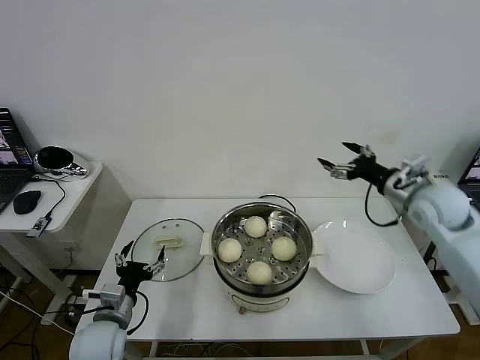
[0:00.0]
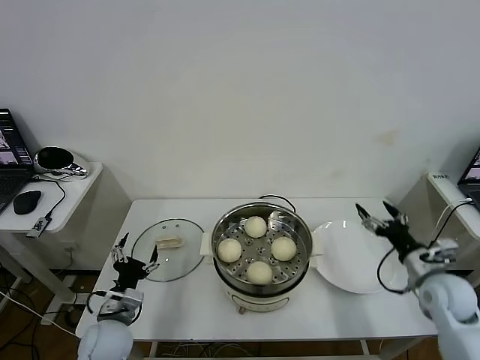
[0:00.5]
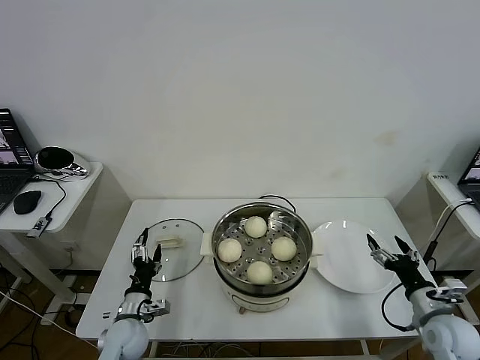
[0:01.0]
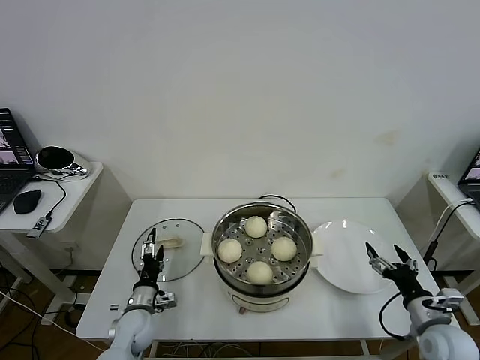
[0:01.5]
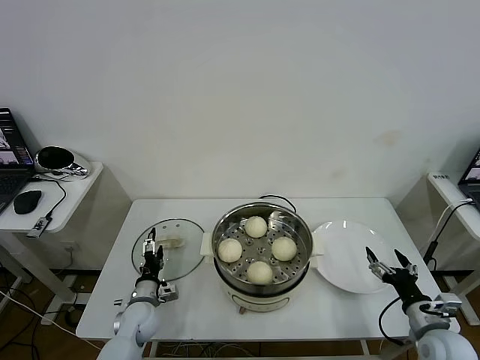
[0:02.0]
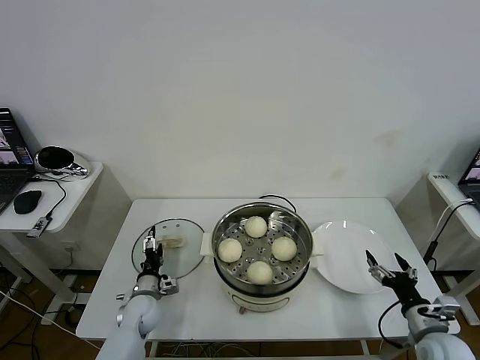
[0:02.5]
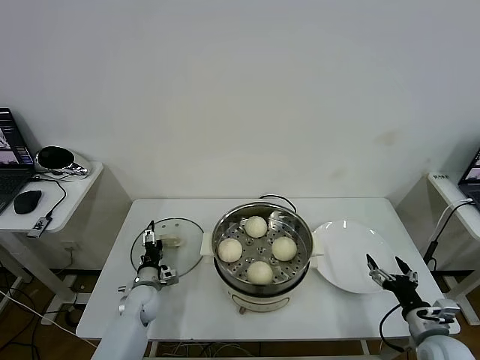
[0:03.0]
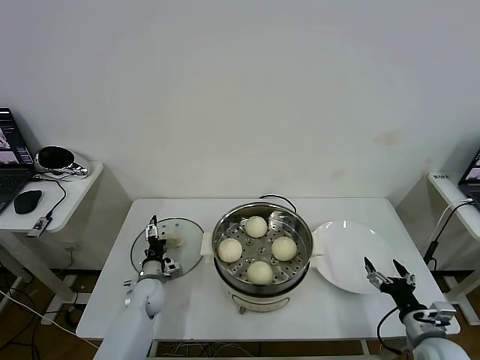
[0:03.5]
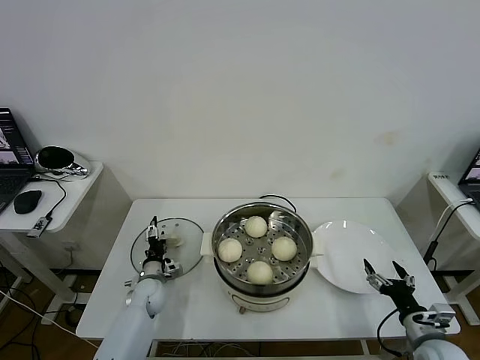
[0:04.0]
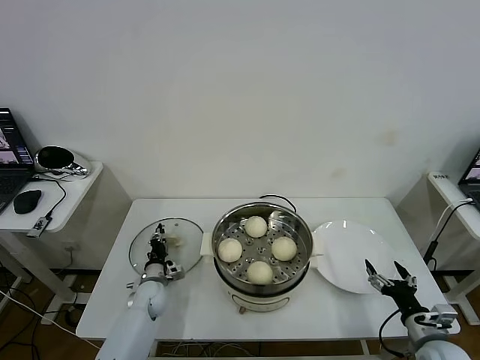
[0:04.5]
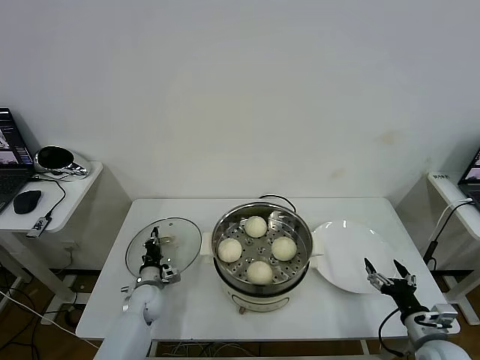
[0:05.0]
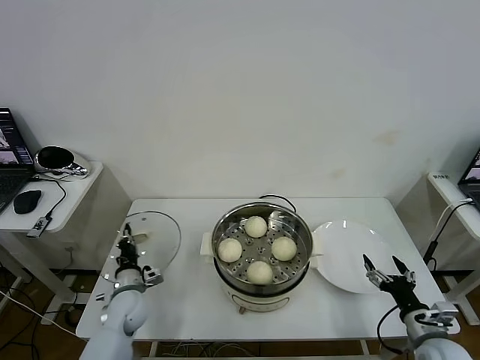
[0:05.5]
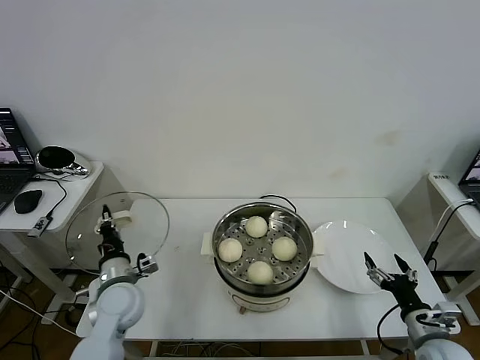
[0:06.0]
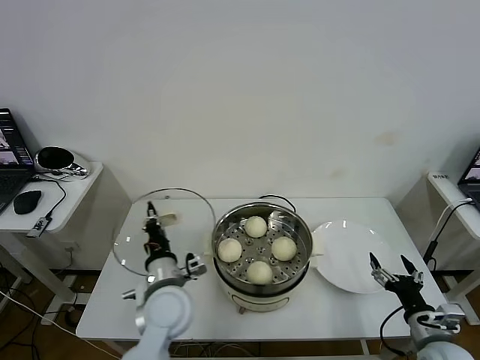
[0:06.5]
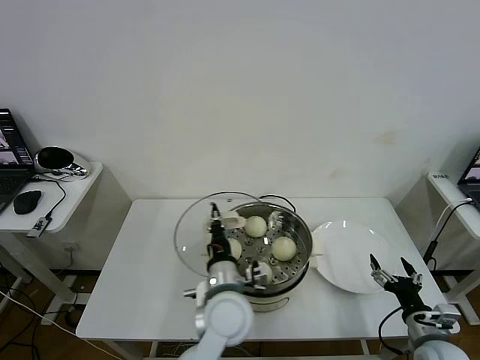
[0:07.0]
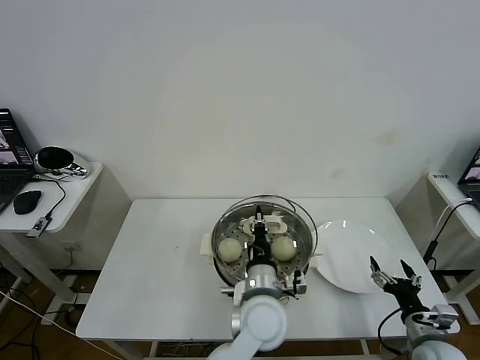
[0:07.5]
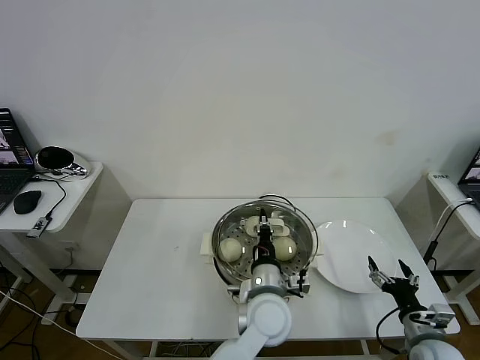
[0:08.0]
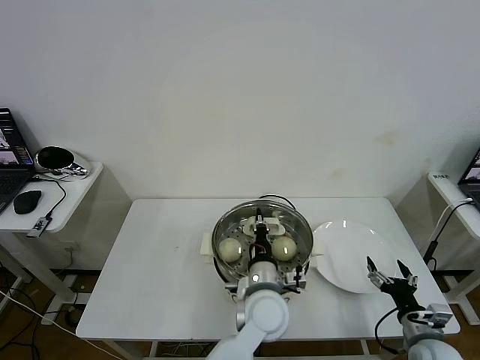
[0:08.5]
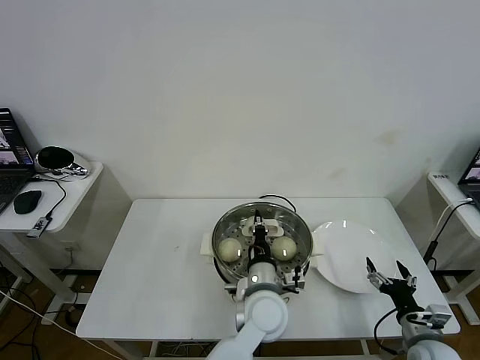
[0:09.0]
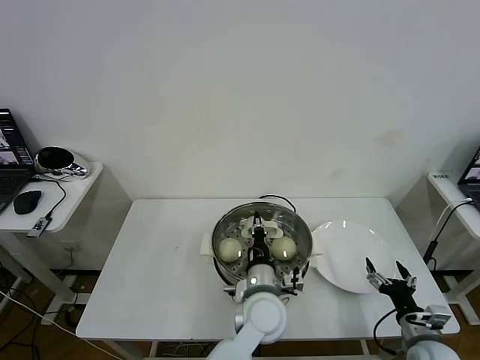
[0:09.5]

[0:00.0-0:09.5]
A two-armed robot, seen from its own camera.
Task of the whole recording: take steamed baozi put them in steamer then cover it.
Step, 0:00.0 to 0:04.5: Grasp the pot lid with left gripper.
0:00.0 to 0:02.0: The right gripper travels backward and downward by some 30 cm; the left gripper goes approximately 15 cm downward and forward.
0:02.0 to 0:04.0: The left gripper is displaced forward by some 10 cm.
0:04.0 to 0:05.5: The left gripper is displaced backward and upward by about 10 cm, and closes.
0:05.5 to 0:07.5: The left gripper is displaced to the right and upward by some 35 cm.
0:07.5 to 0:09.5: There are only small adjustments of the grippers.

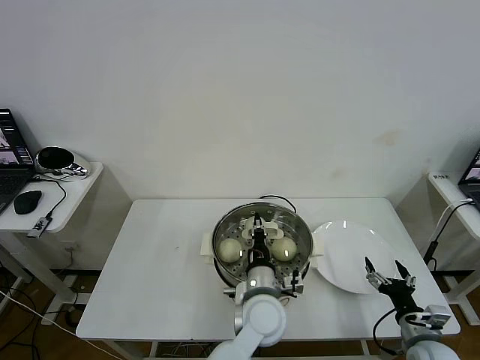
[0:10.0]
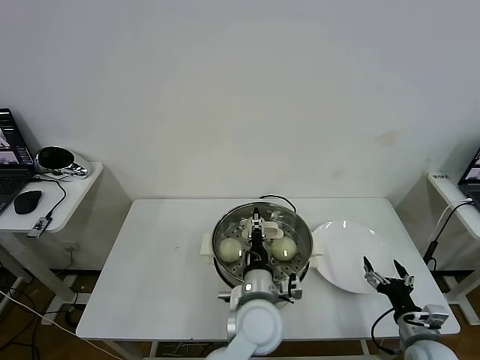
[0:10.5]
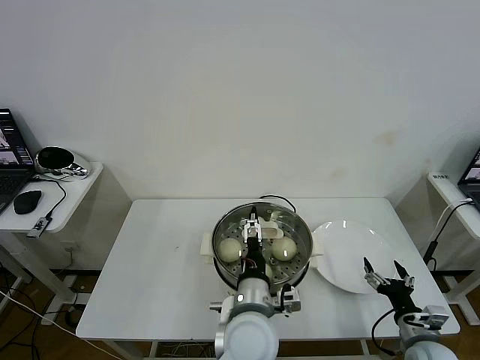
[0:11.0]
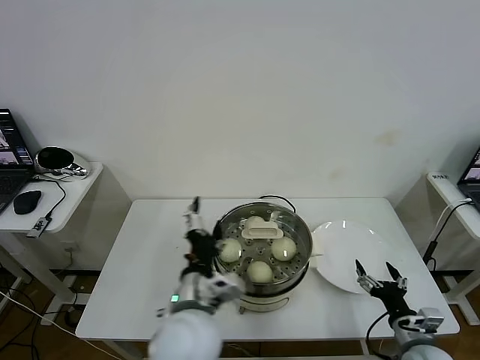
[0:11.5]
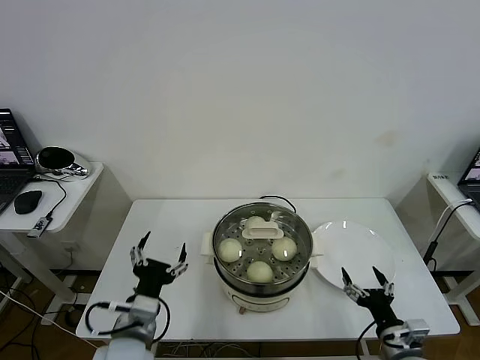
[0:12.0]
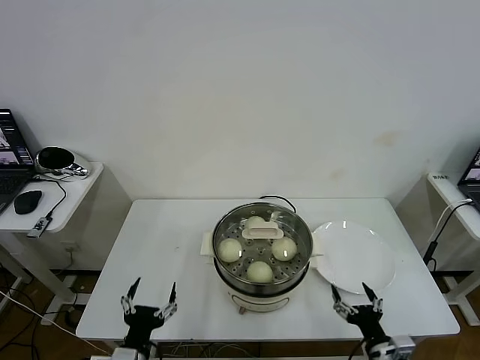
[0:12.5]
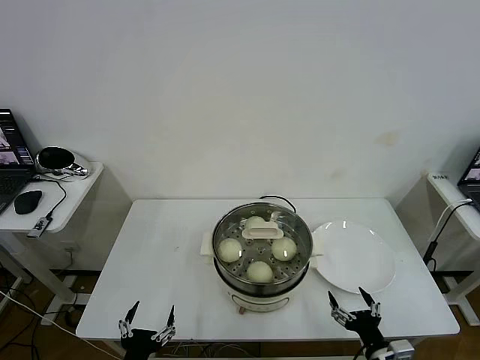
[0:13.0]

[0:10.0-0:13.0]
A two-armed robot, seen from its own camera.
Task of the whole recording: take steamed baozi put them in steamer then cover it.
0:10.0 to 0:11.5: The left gripper goes roughly 15 cm to the left, upward and backward, and opens up.
0:11.5 to 0:13.0: The left gripper moves to the left, downward and backward, about 25 cm; the right gripper travels to the left and backward by roughly 10 cm.

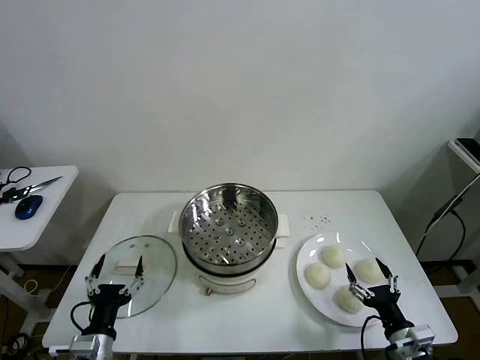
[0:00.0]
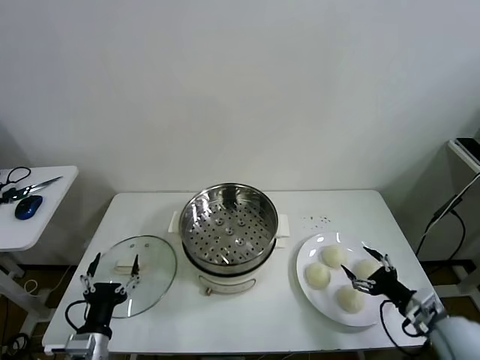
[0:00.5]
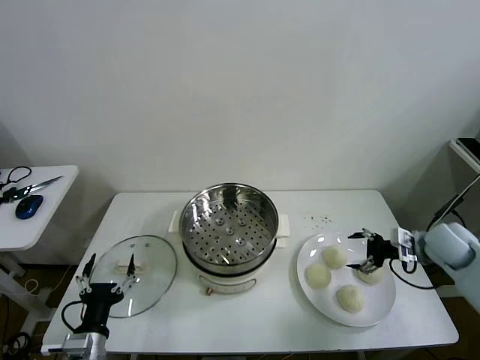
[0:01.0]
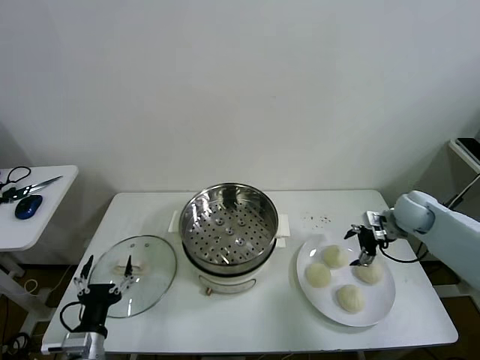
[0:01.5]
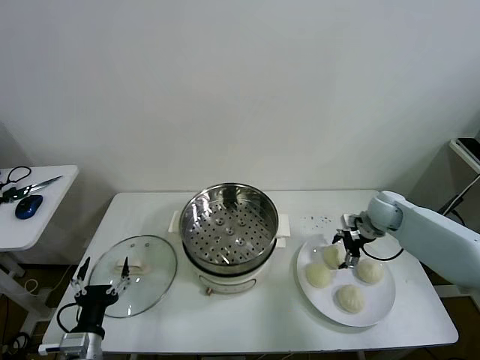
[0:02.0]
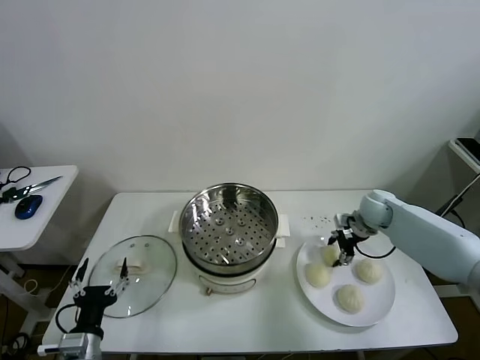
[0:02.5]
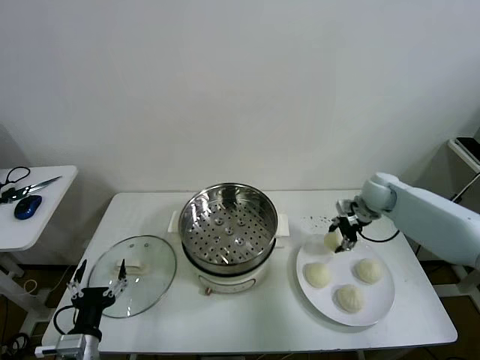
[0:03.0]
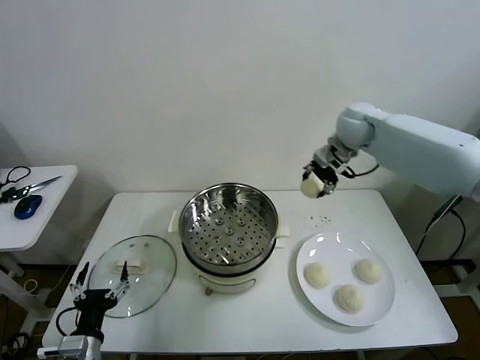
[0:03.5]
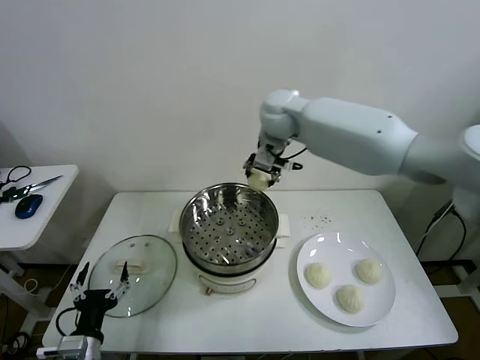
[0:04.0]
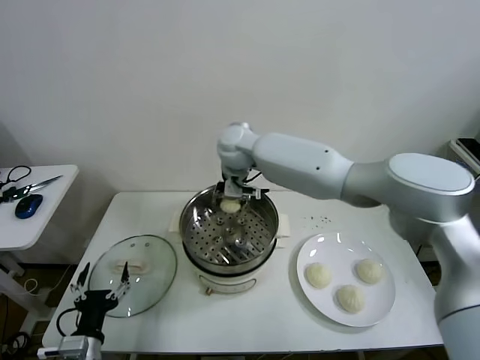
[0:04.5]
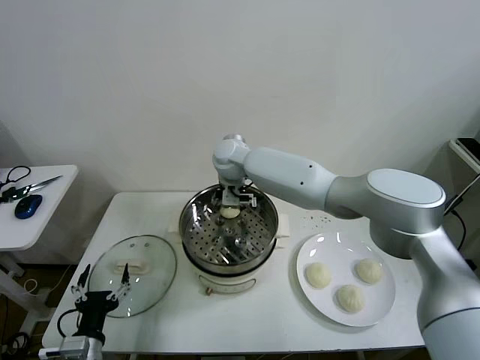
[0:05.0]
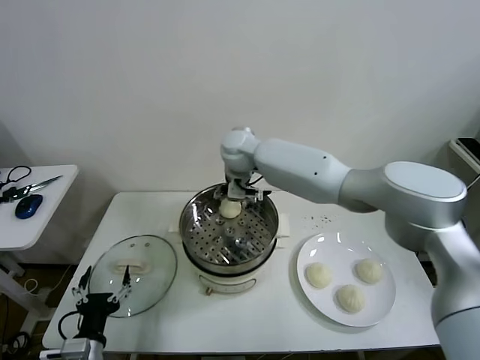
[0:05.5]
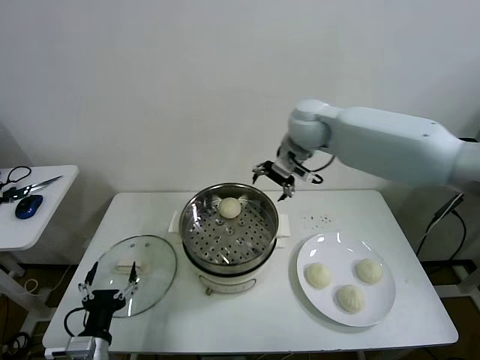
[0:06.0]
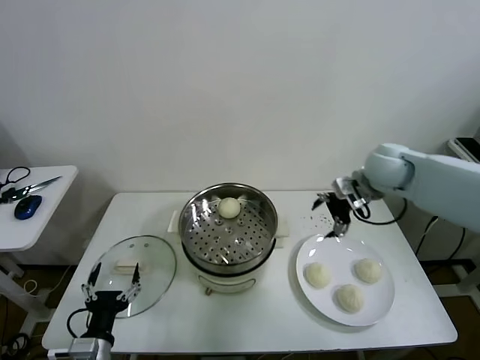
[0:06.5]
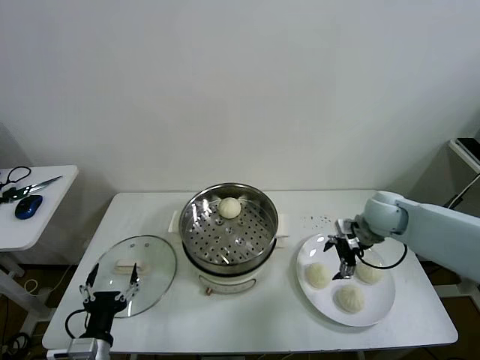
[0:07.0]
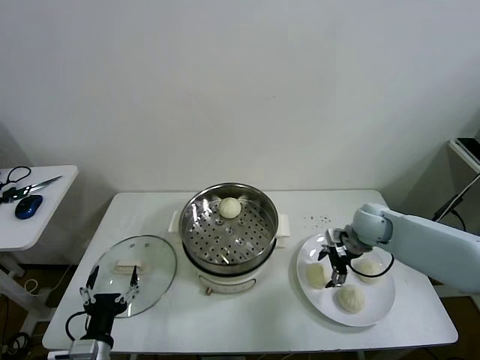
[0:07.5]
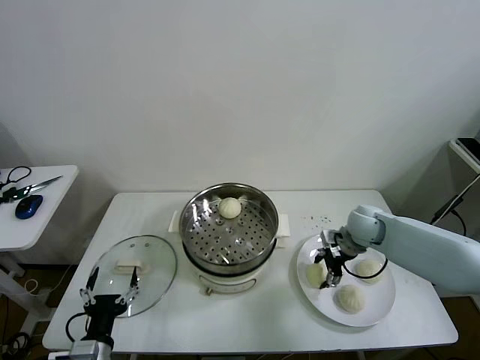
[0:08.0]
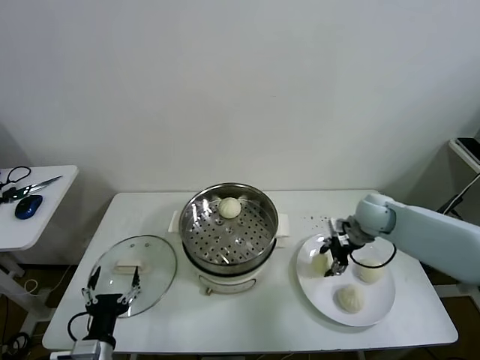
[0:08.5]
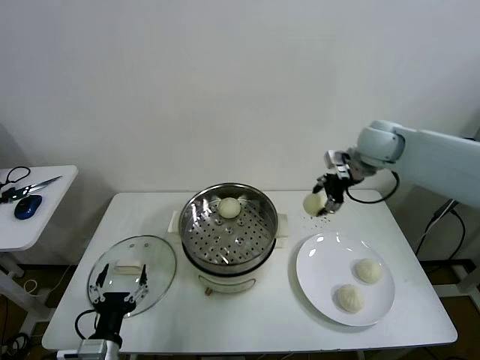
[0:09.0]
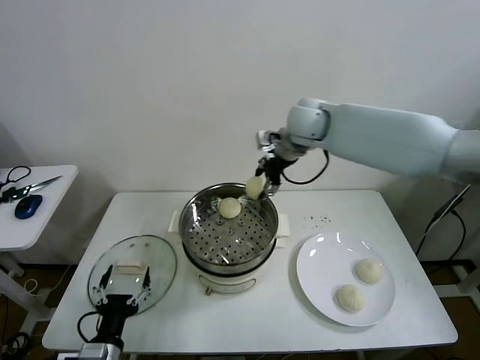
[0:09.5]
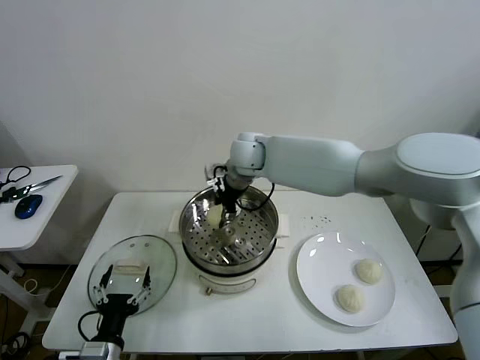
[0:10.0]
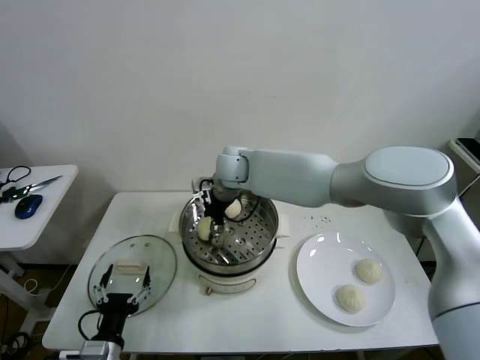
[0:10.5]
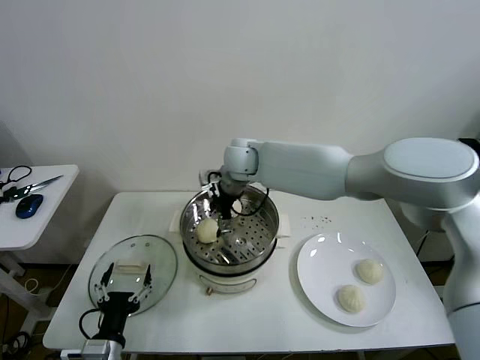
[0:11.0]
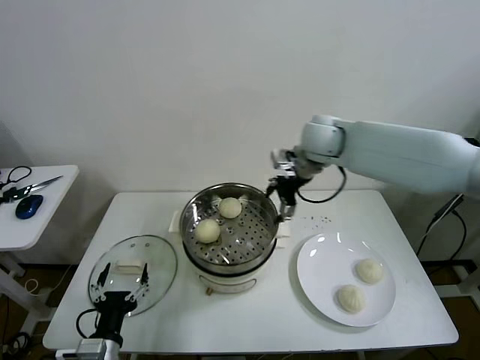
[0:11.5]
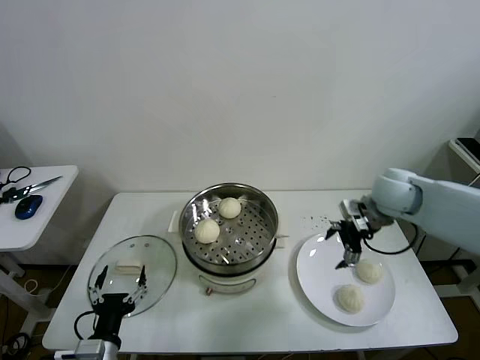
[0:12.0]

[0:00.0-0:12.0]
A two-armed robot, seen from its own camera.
Task of the whole recording: take steamed baozi put them in steamer then cover it.
Step, 0:00.0 to 0:02.5: Grasp the baozi in the plate with right gripper.
Step, 0:03.0 to 0:05.0: Place the baozi on the steamer with right gripper.
Step, 0:05.5 to 0:08.0: Grasp the baozi in the plate with right gripper.
Step, 0:08.5 to 0:10.5: Place the baozi on the steamer with right gripper.
0:02.0 to 0:04.0: The right gripper goes roughly 40 cm to the left and upward, and closes.
0:04.0 to 0:06.0: The right gripper moves to the right, about 10 cm, and opens up.
0:06.0 to 0:08.0: The right gripper heads downward and to the right, covering about 30 cm, and closes up.
0:08.0 to 0:10.0: The right gripper travels to the left and upward by approximately 35 cm.
0:10.0 to 0:12.0: The right gripper is displaced to the right by approximately 35 cm, and opens its fingers.
